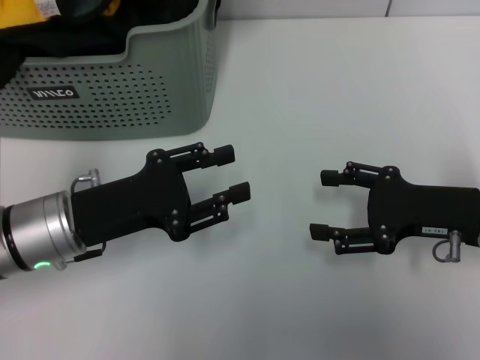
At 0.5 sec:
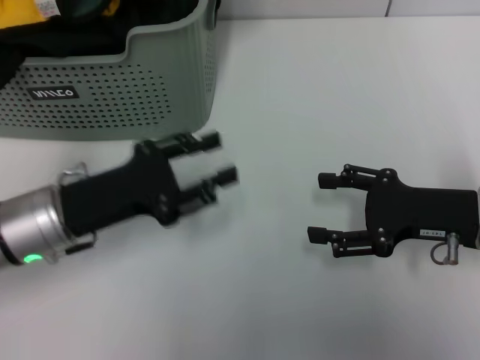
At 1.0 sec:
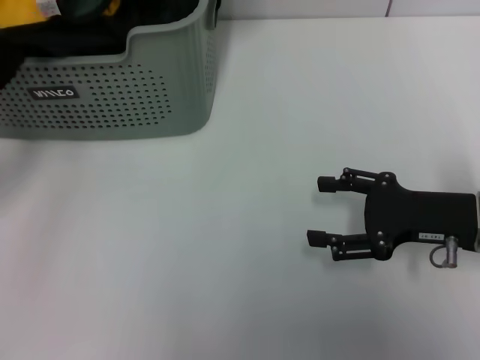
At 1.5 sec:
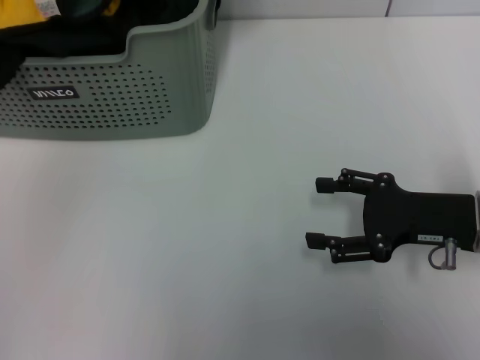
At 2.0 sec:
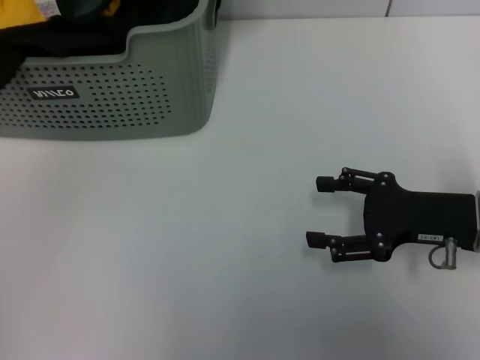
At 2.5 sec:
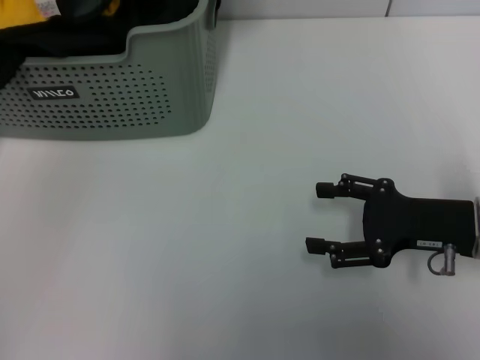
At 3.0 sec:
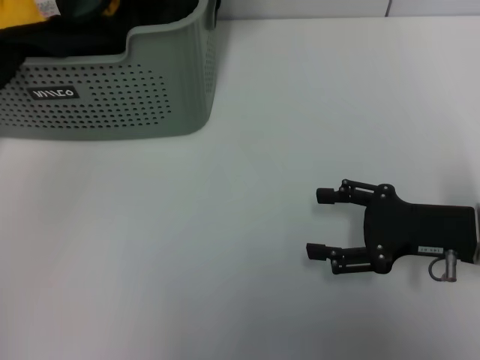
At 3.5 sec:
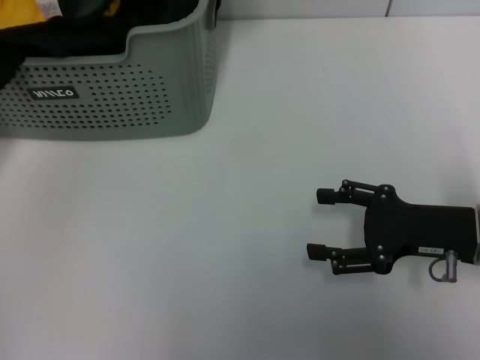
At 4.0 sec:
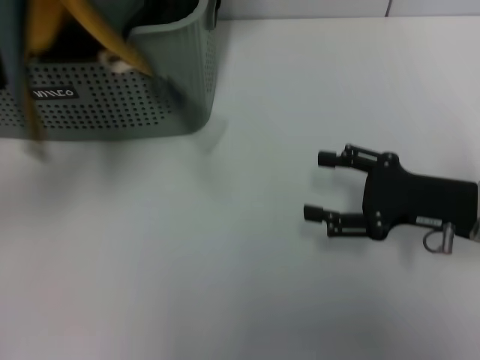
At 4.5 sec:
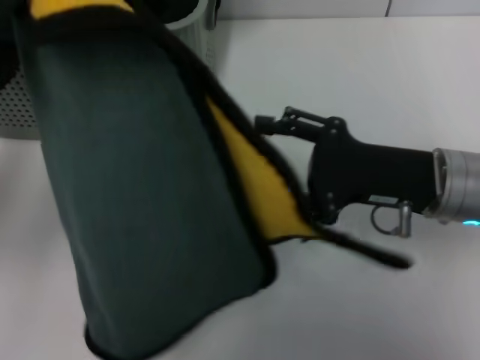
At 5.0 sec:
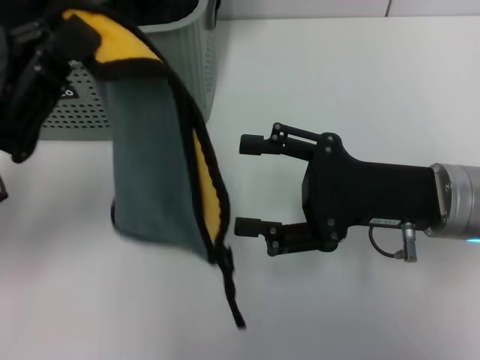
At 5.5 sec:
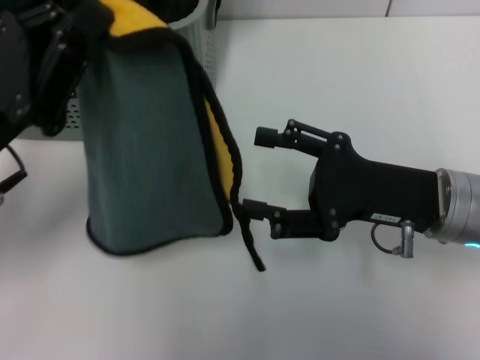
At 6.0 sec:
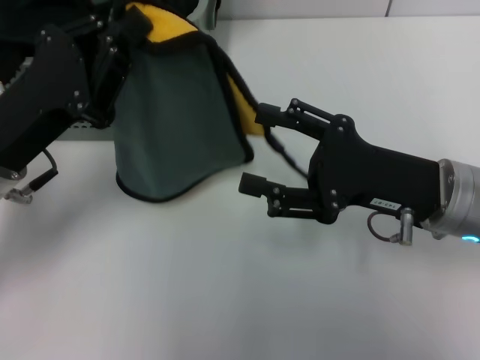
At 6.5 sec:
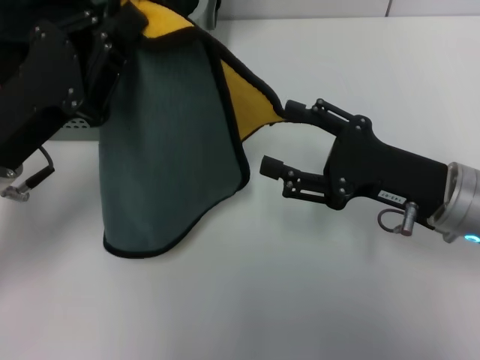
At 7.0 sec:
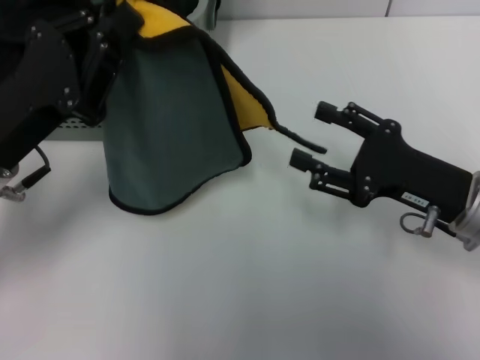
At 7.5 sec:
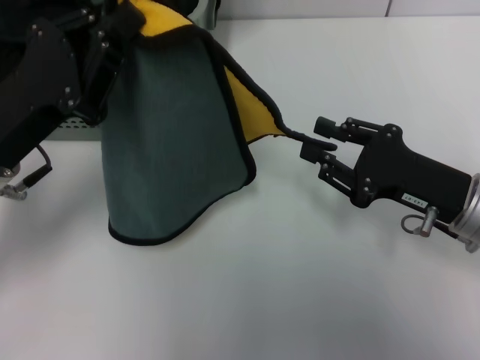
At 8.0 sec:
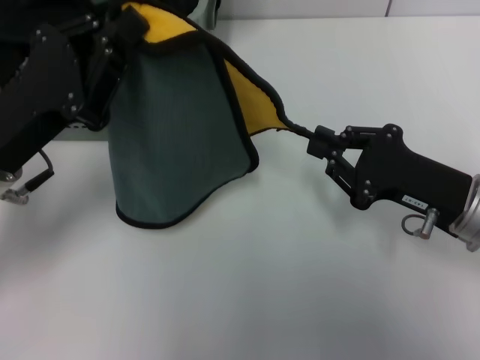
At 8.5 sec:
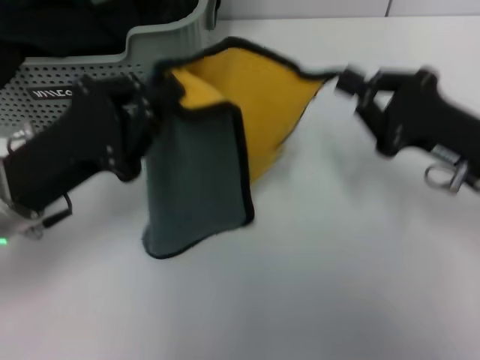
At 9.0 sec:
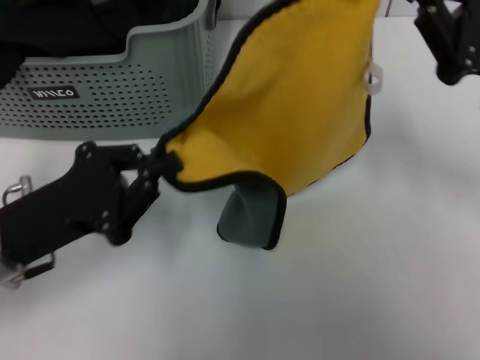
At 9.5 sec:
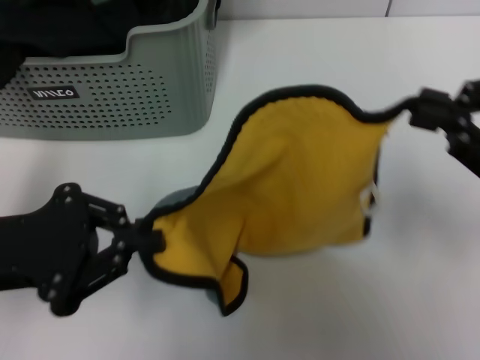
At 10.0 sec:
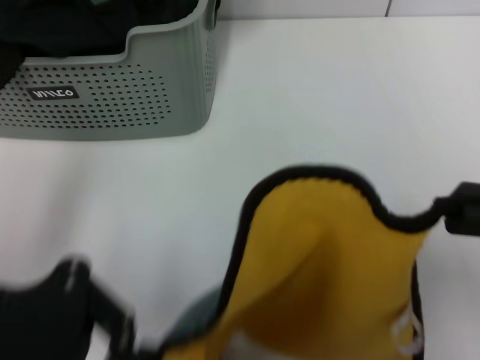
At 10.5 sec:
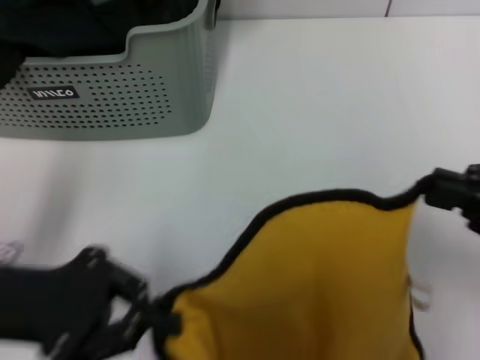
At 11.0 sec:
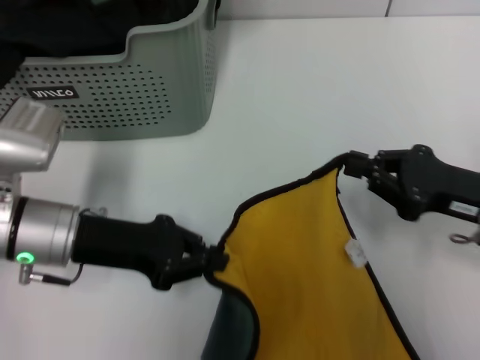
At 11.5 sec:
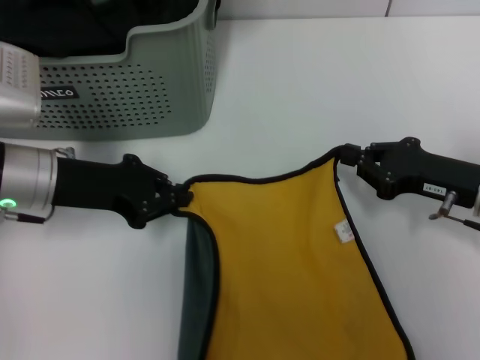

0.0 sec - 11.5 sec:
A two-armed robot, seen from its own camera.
Task of the whole recording: pick up the towel from the storage box and lay it flat on the table.
Step, 0.0 sec - 3.0 sec: Pick up a towel with the left gripper.
Step, 3.5 sec - 7.5 sec: Spread the towel flat with the left gripper.
0.0 sec - 2.0 sec: The left gripper heads to the left, forward and upward, covering some 20 cm.
2.0 sec - 4.0 sec: The left gripper goes roughly 15 cm backward, to the right and upward, and closes up.
4.0 sec - 6.0 sec: The right gripper moves to the left, about 5 cm. The left gripper heads downward and to the right, covering roughly 10 cm.
6.0 sec - 7.5 sec: The right gripper shifts by roughly 5 cm, and closes up.
7.5 sec - 9.5 sec: The left gripper heads backward, covering roughly 5 cm, while the right gripper heads upward and to the right, covering about 15 cm, and closes up.
9.5 sec - 11.5 sec: The right gripper shifts roughly 15 cm downward and forward, while the left gripper goes roughly 10 cm forward.

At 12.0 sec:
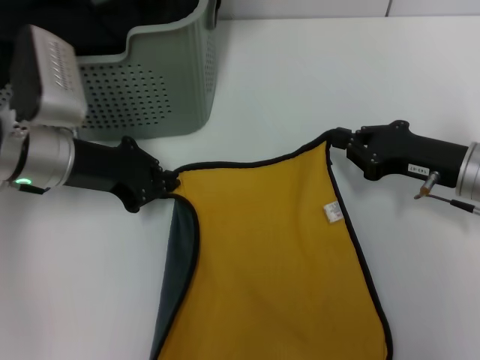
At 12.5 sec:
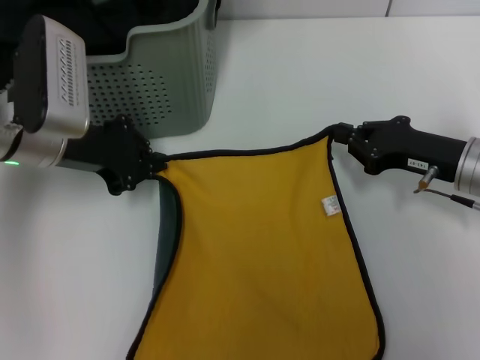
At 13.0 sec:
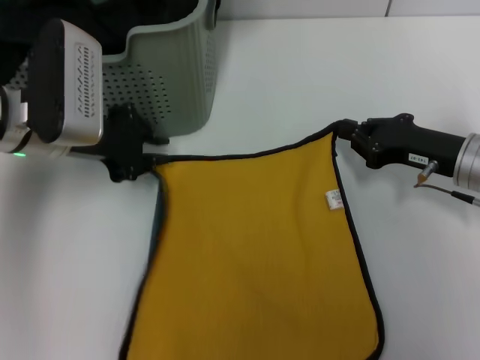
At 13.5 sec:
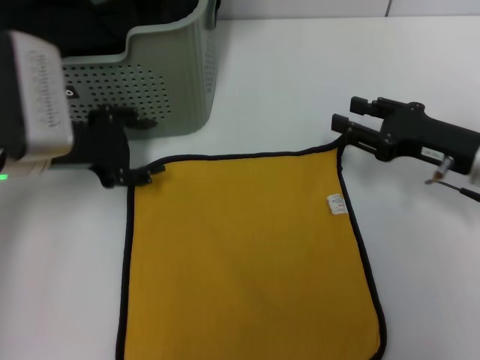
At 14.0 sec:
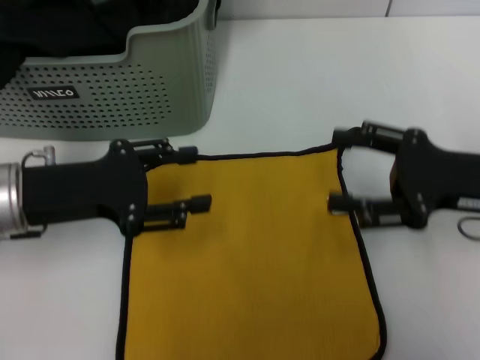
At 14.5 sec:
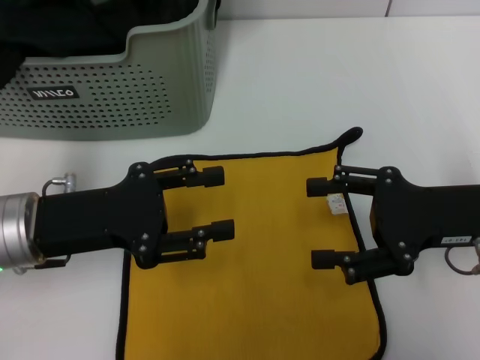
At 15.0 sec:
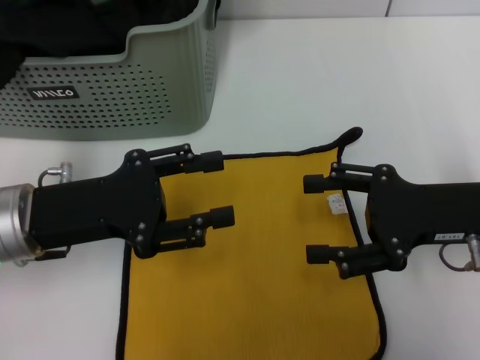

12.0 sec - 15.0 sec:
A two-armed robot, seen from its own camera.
Task of the whole recording: pick up the towel from the storage box and lay it flat on the table.
12.0 sec - 13.5 sec: The left gripper opens its fingers. The right gripper opens up.
13.5 sec - 15.0 sec: Both grippers move backward, roughly 5 cm. The right gripper opens up.

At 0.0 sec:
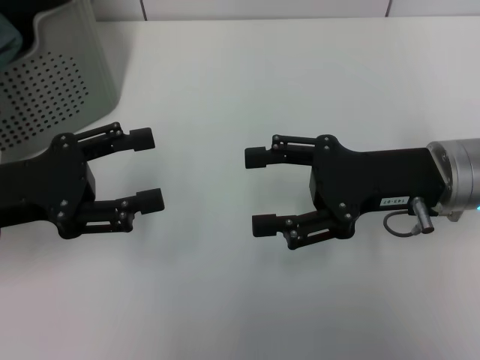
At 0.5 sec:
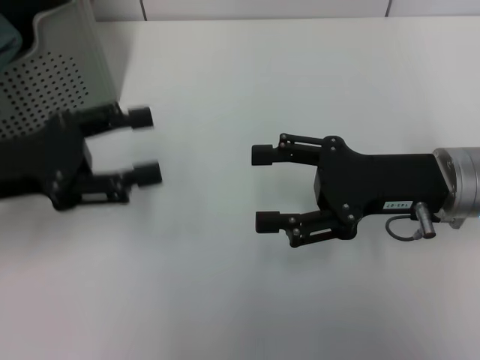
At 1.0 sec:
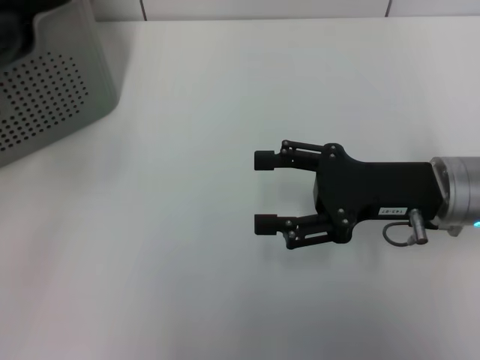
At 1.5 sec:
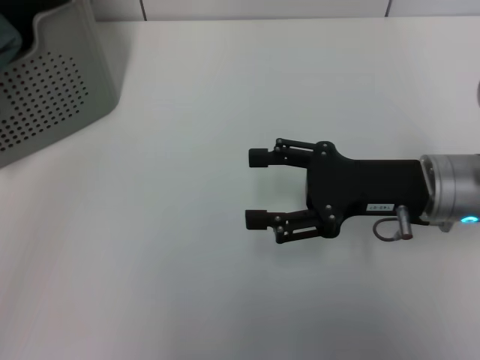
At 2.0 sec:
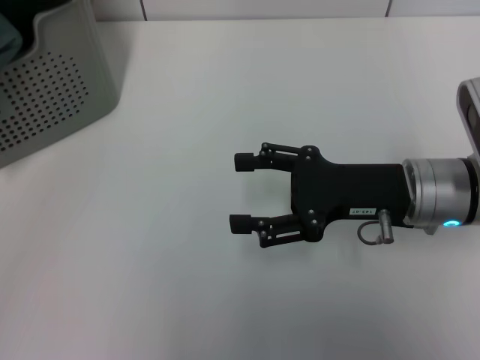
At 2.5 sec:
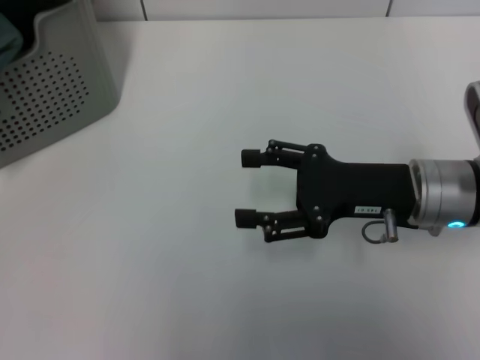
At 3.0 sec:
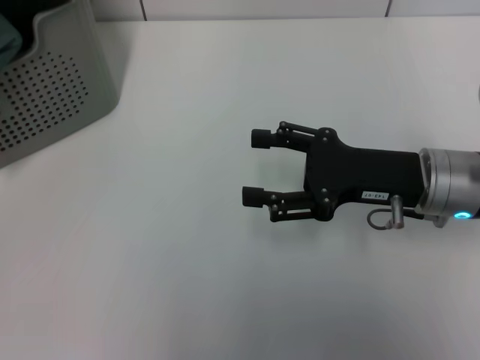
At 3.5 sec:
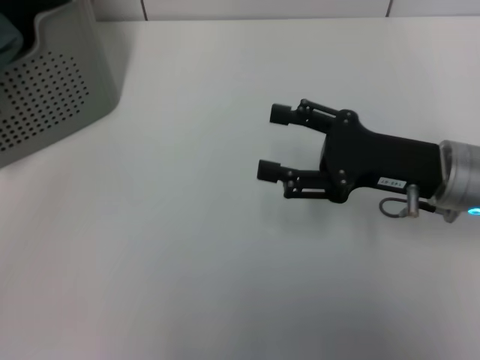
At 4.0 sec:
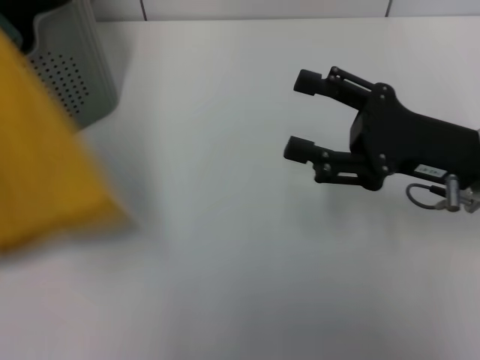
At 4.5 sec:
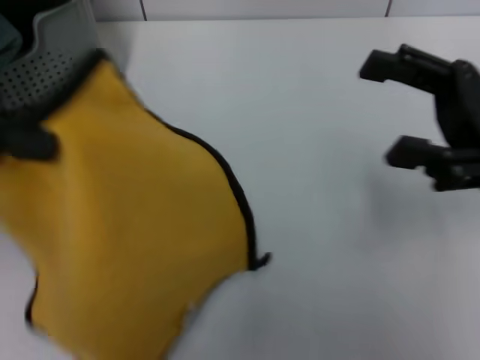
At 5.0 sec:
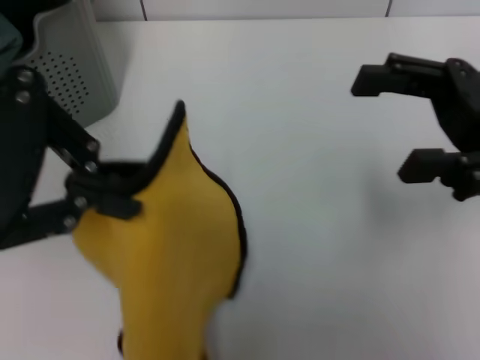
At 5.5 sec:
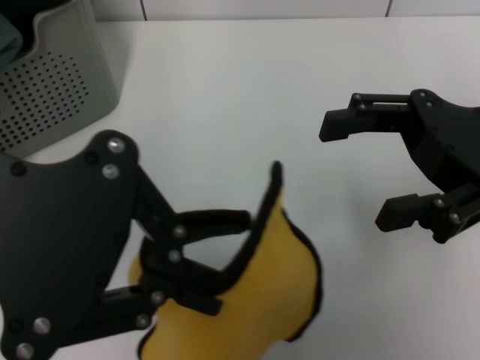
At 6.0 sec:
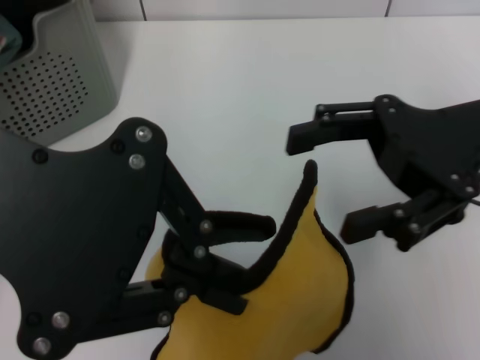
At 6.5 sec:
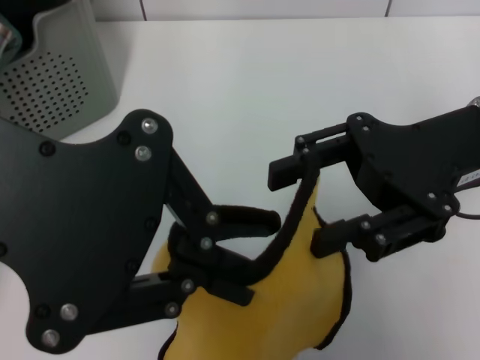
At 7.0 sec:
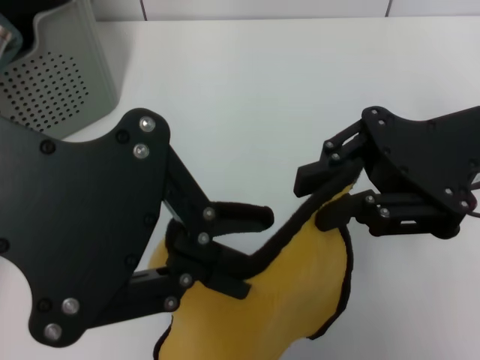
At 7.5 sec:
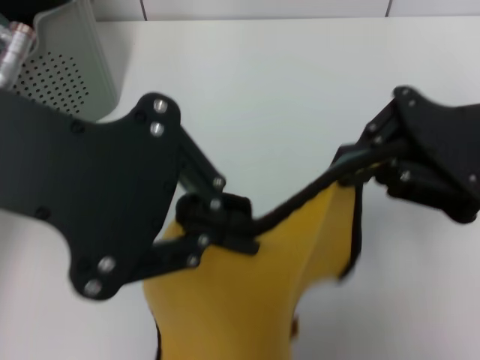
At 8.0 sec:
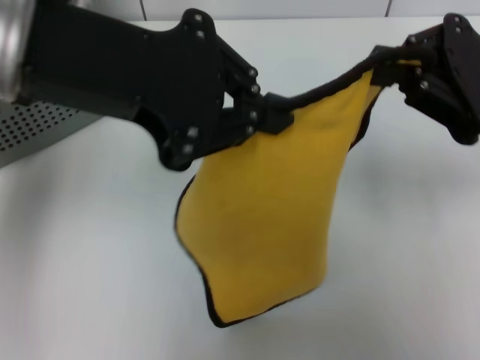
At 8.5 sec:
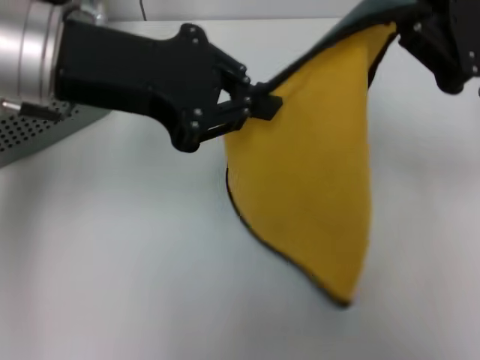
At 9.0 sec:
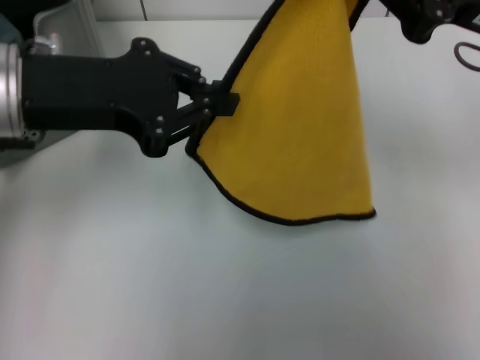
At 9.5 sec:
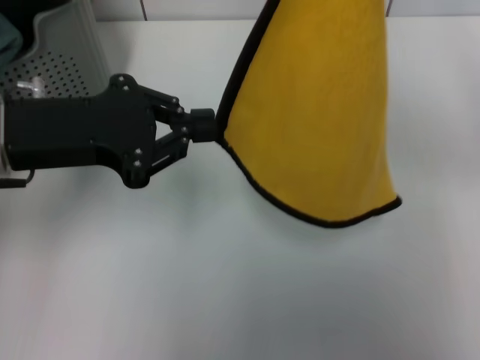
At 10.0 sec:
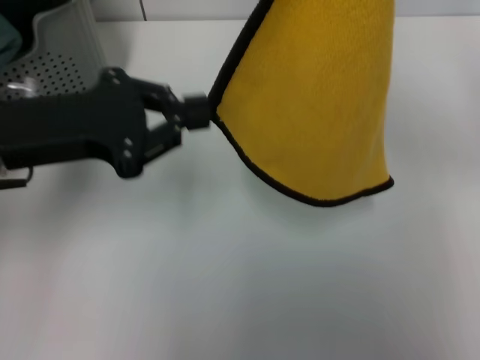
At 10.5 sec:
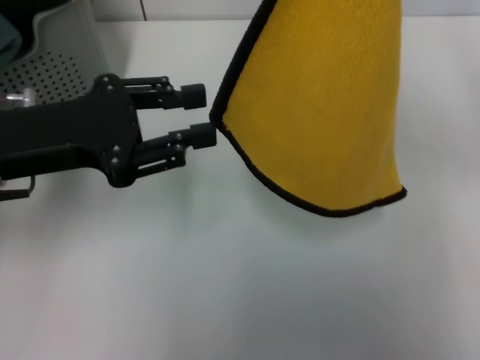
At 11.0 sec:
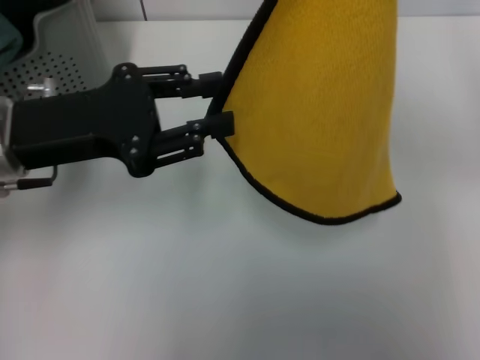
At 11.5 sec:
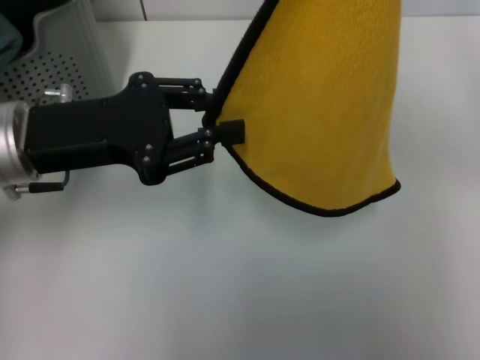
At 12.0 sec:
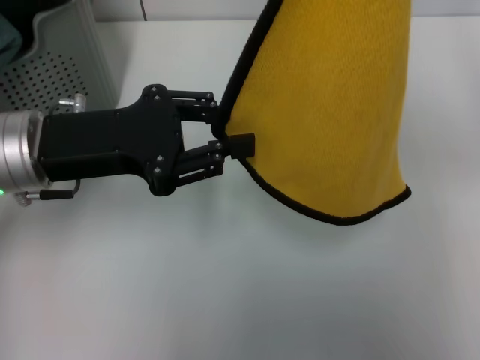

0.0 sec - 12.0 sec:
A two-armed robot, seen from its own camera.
Task of the whole recording: pick up the towel from the storage box and lay it flat on the table.
Step, 0.0 sec - 3.0 sec: Pick up a towel with the left gripper.
Step, 3.5 sec - 7.0 sec: Spread the towel flat with the left gripper.
0.0 sec - 2.0 sec: The left gripper goes approximately 20 cm upward and to the left.
2.0 sec - 4.0 sec: The left gripper moves to the right and upward, about 10 cm, and closes.
4.0 sec - 6.0 sec: The right gripper is displaced upward by about 5 cm; the left gripper travels to the right by approximately 15 cm.
6.0 sec - 8.0 sec: The right gripper closes its fingers, while the left gripper travels forward by approximately 5 cm.
8.0 sec - 10.0 sec: The right gripper heads upward, covering some 5 cm. Meanwhile the left gripper travels downward and to the left by about 15 cm.
10.0 sec - 12.0 sec: The grippers move only a little.
